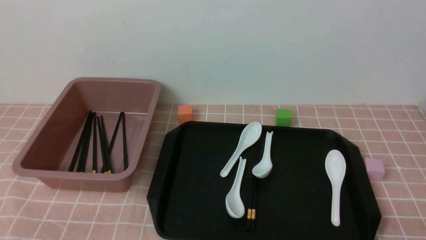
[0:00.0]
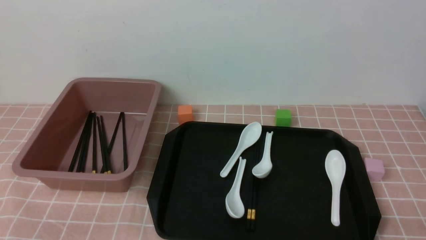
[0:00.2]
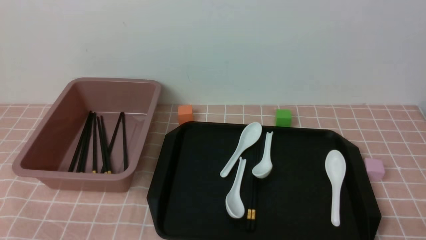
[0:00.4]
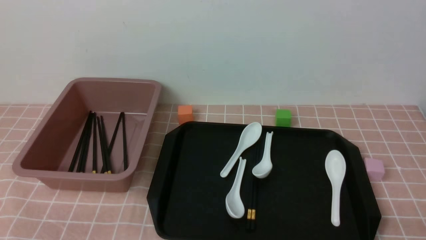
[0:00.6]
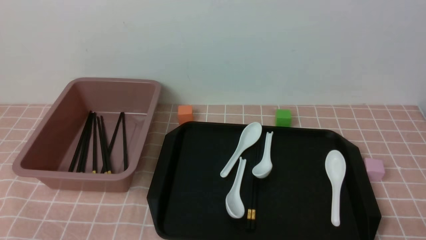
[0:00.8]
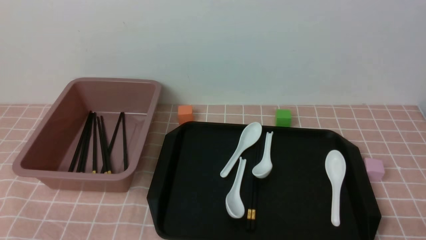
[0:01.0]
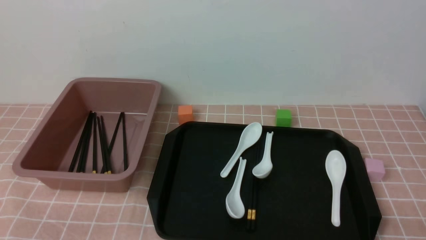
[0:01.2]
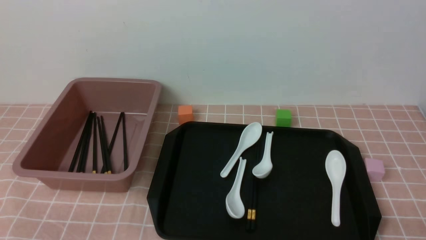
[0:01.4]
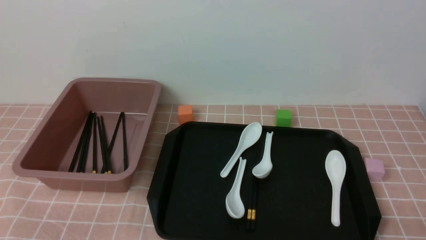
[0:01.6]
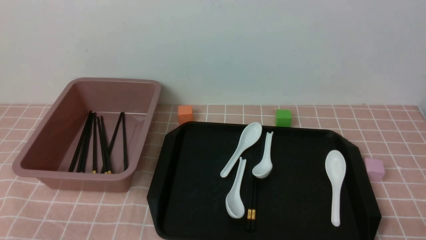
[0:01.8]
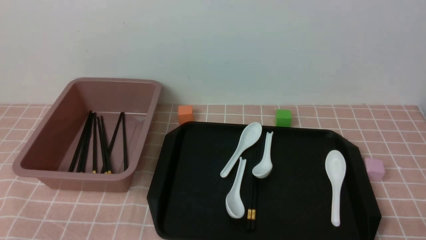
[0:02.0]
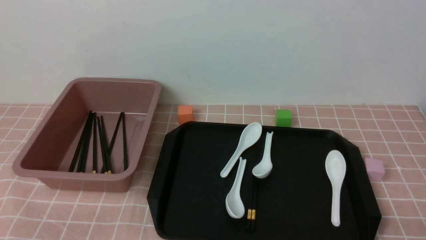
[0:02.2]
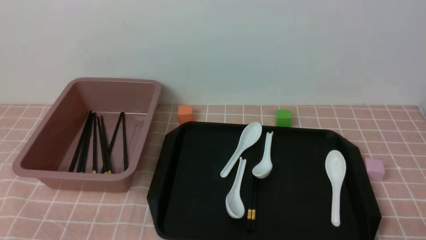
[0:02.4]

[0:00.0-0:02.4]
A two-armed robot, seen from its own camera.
0:00.0 to 0:02.4: Neither gripper changes place.
